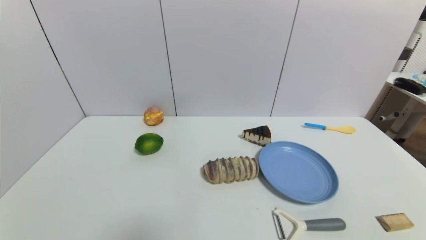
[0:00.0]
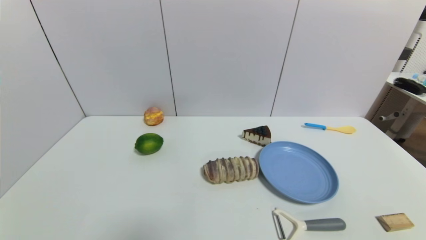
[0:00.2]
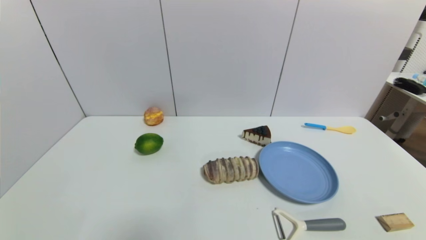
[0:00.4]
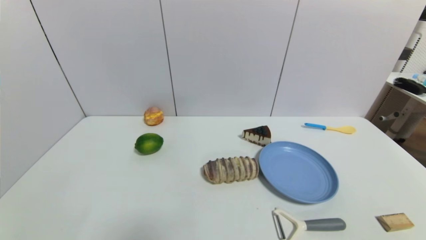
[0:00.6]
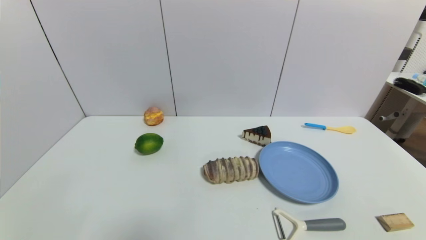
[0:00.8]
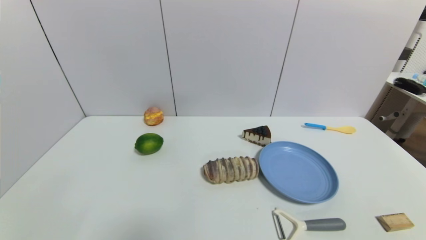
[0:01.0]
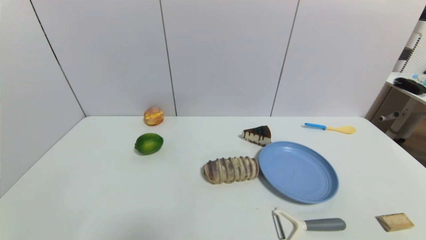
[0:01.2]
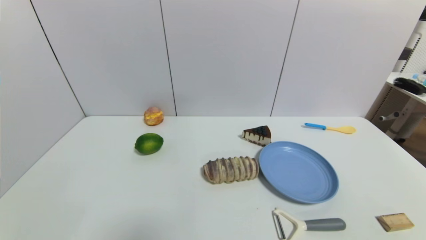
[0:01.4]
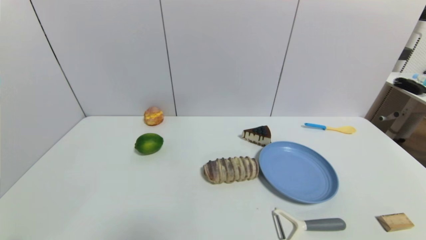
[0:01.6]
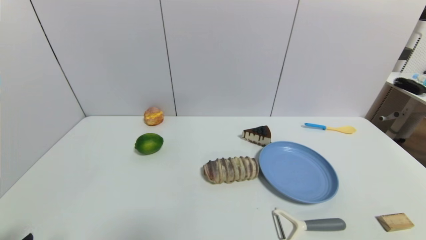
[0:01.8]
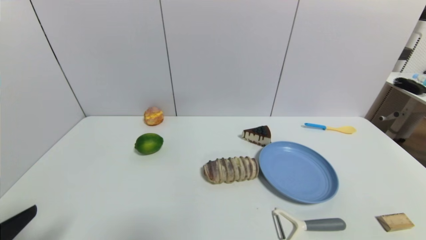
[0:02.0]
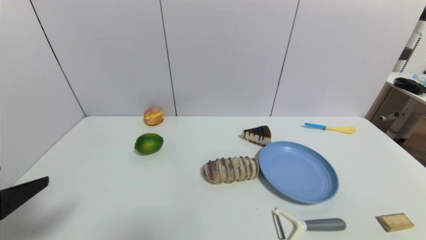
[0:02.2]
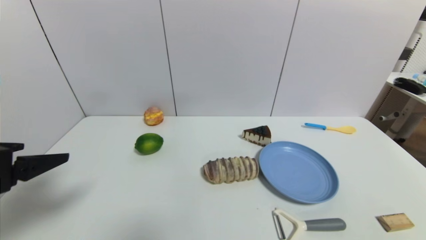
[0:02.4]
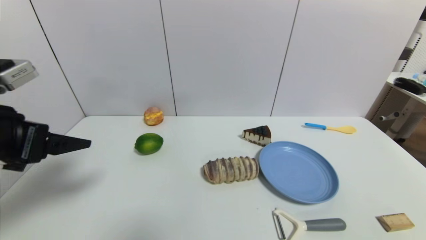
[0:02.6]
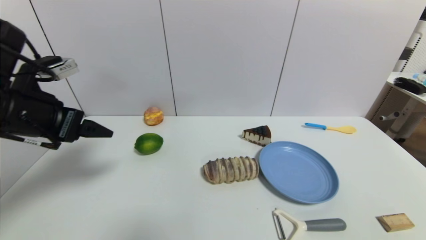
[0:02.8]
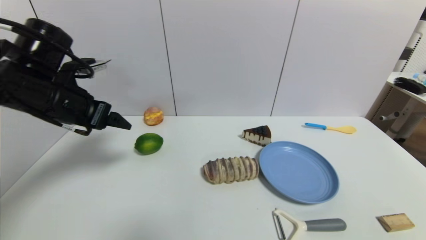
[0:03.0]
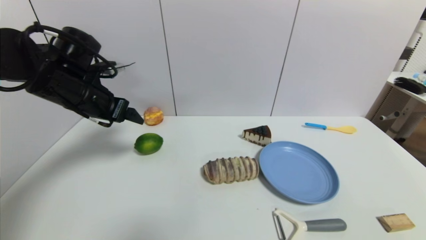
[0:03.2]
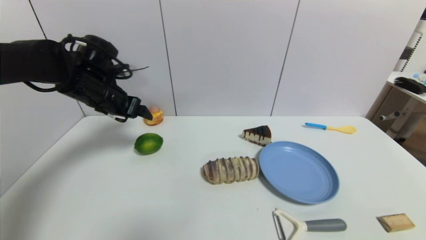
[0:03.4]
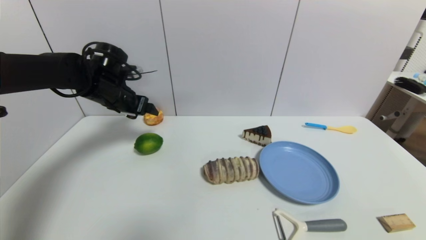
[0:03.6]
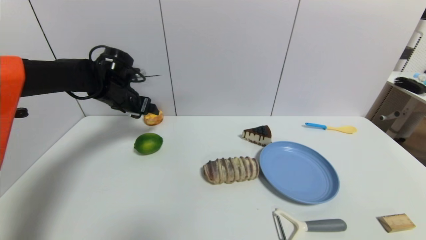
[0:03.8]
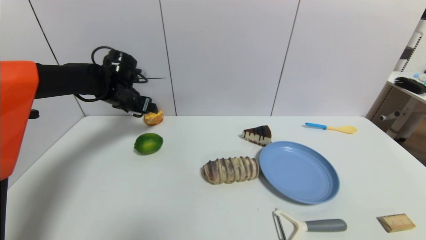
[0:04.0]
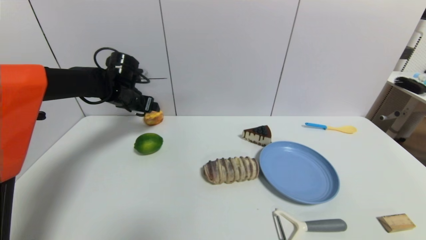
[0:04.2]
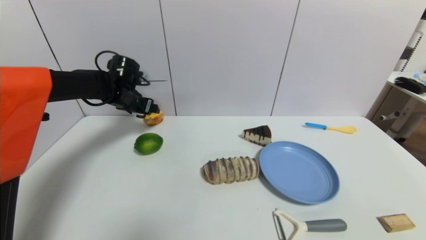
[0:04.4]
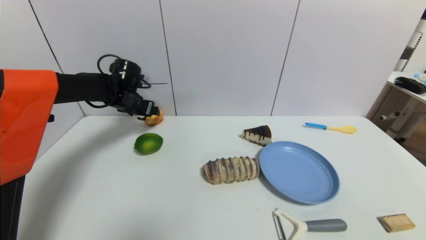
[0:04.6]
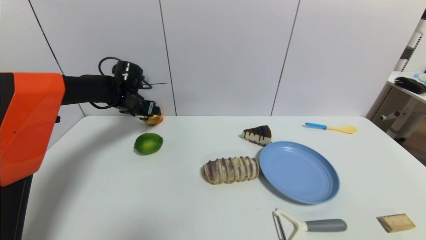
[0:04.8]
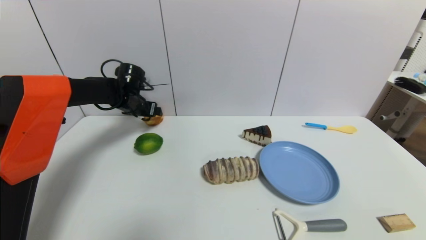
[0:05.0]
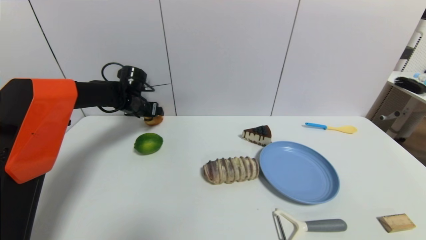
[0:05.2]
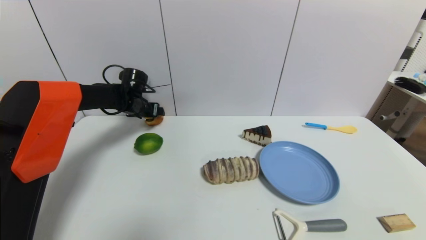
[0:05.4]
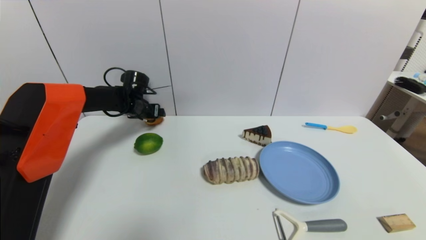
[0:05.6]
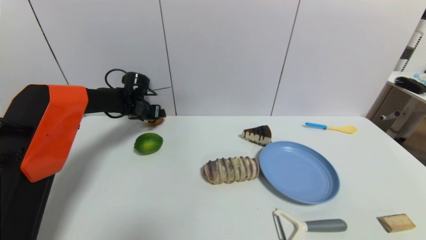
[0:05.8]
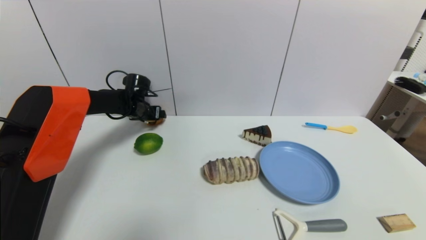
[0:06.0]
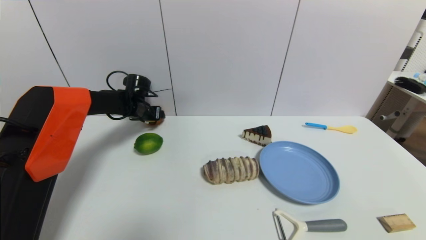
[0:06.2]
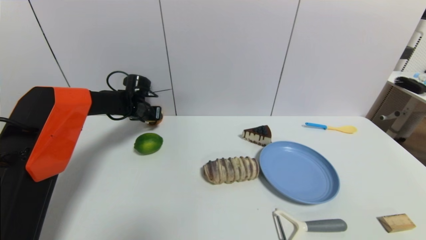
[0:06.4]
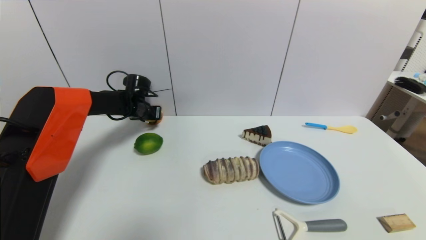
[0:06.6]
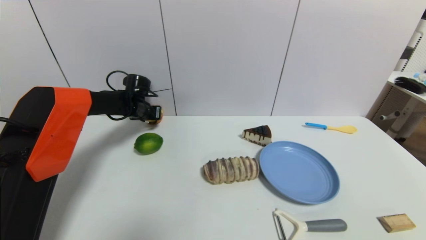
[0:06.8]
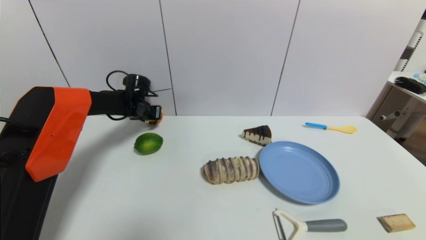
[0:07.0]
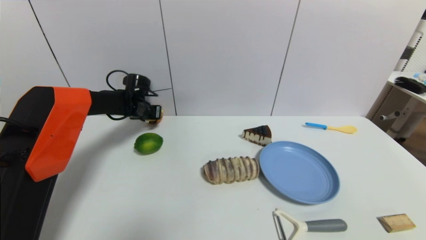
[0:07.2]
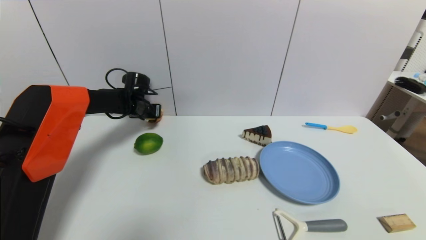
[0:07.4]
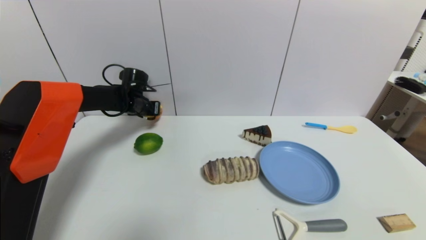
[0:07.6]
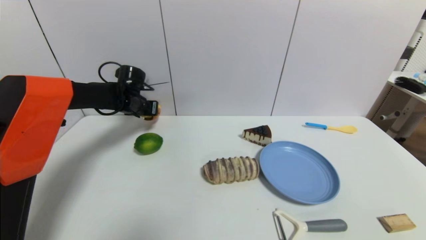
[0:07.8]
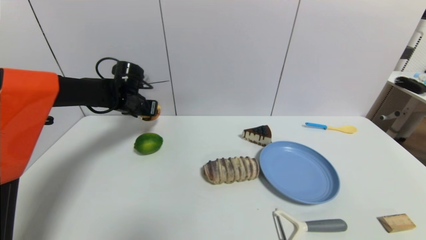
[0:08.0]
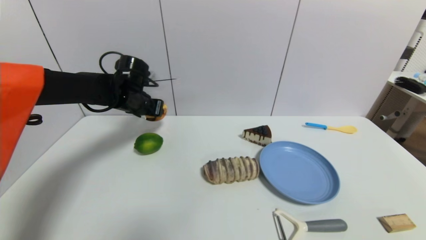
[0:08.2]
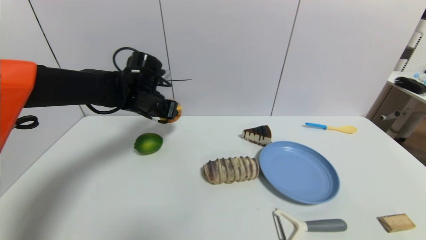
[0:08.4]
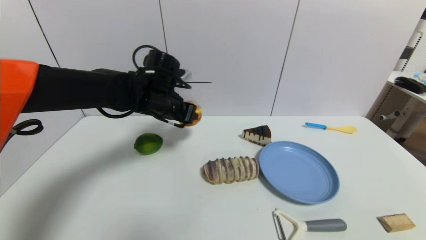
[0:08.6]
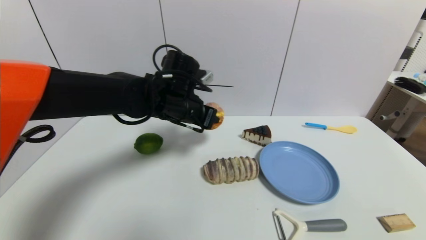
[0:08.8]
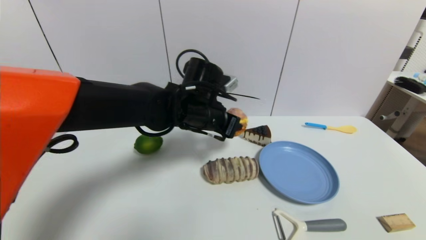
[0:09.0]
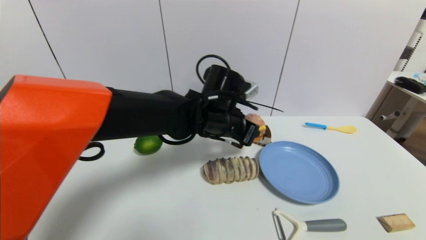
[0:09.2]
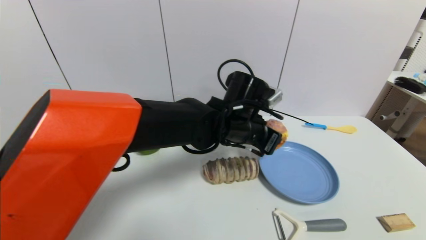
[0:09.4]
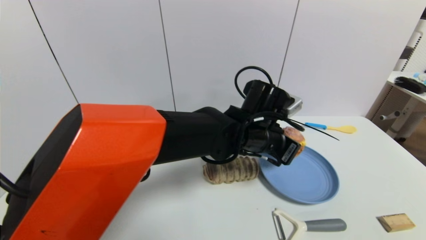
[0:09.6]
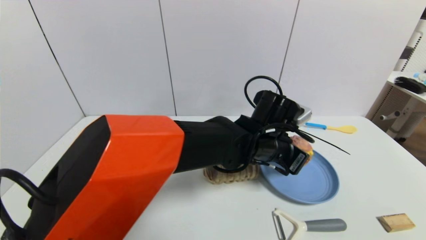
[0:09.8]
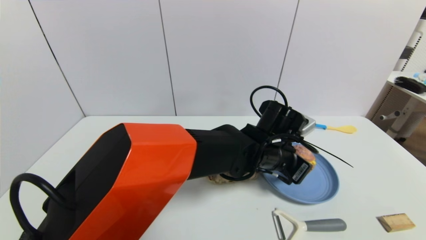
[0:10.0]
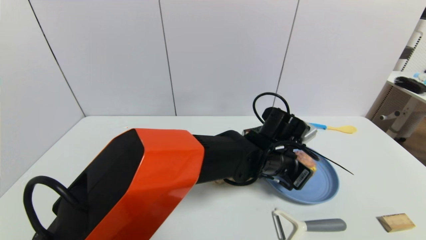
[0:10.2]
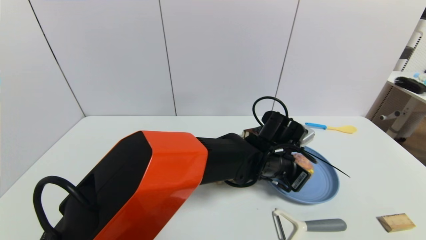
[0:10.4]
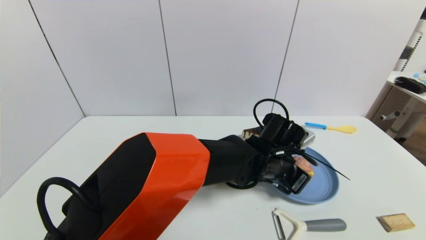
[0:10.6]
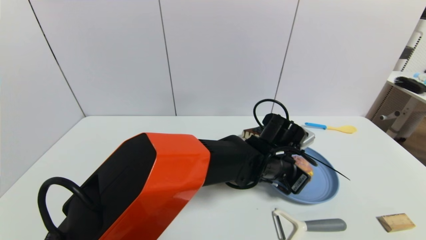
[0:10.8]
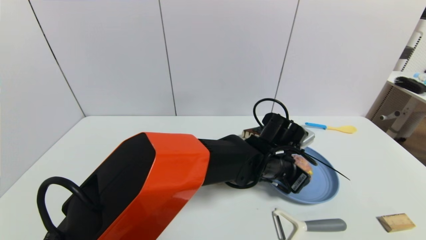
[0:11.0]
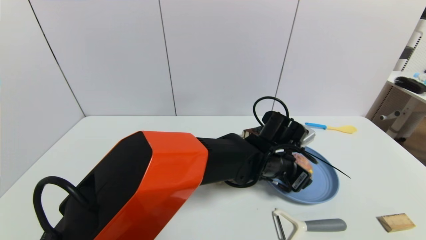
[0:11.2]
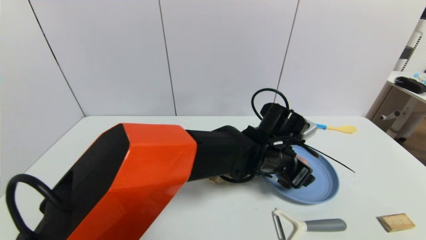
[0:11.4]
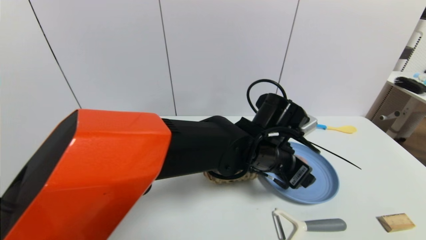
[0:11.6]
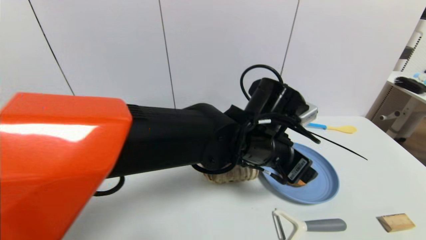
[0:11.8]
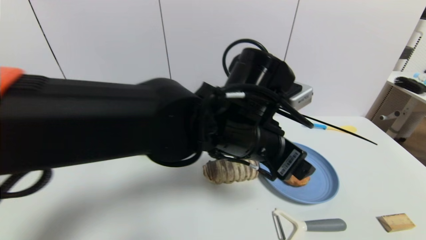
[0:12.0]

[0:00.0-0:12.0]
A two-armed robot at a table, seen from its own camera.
Task of the whole recording: use a gripper to pick the target object and place on the blue plate.
Step, 0:00.0 to 0:06.4: Grasp the round bread with the left gripper.
Step, 0:06.6 to 0:11.4: Place the round bread on the blue plate with the left gripper.
0:01.6 to 0:03.0: The left gripper is displaced forward and upward by roughly 30 cm.
0:03.0 to 0:04.4: The left gripper shifts approximately 20 cm forward and downward.
0:04.4 to 0:06.0: The left gripper travels downward by roughly 5 cm.
0:06.0 to 0:07.6: The left gripper closes.
0:07.6 to 0:09.0: The left gripper travels to the right and backward by about 25 cm.
0:09.0 to 0:10.4: The left gripper moves to the right and downward, roughly 15 cm.
0:10.4 to 0:12.0: The left gripper heads upward, to the left and backward, covering approximately 15 cm, and opens up.

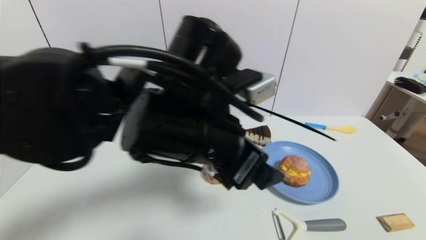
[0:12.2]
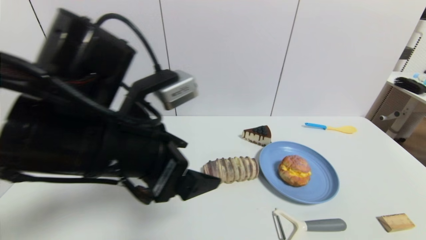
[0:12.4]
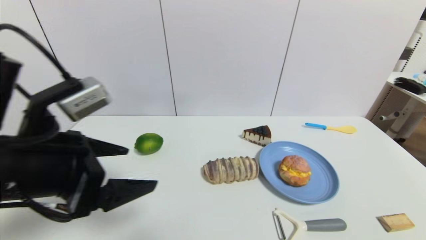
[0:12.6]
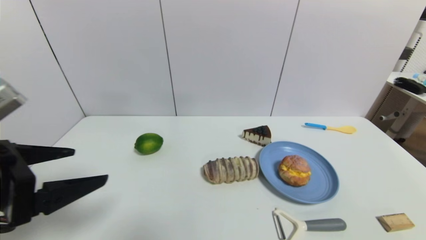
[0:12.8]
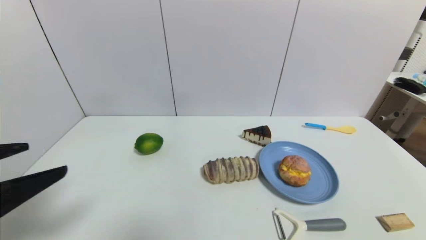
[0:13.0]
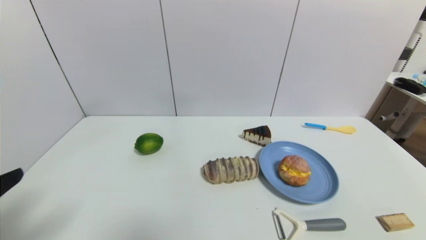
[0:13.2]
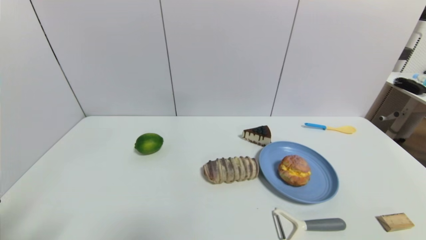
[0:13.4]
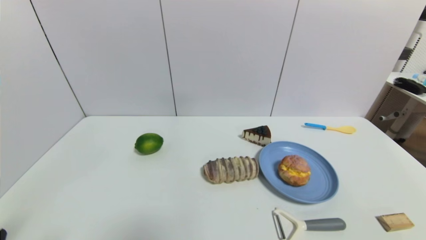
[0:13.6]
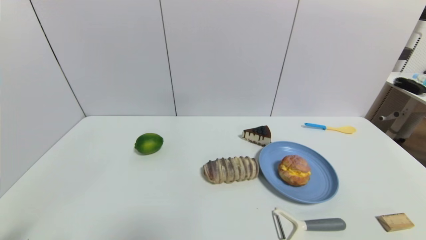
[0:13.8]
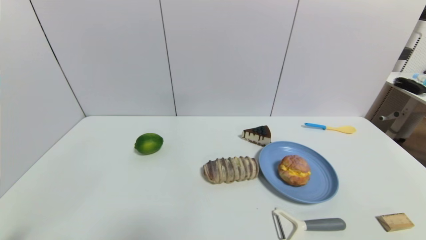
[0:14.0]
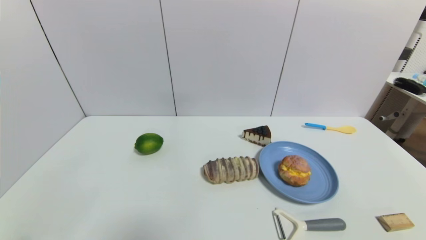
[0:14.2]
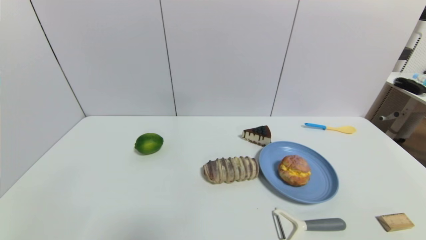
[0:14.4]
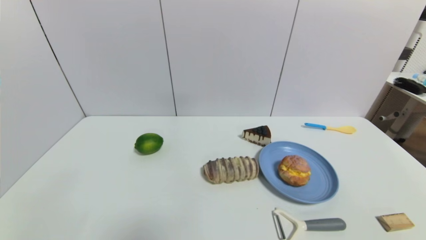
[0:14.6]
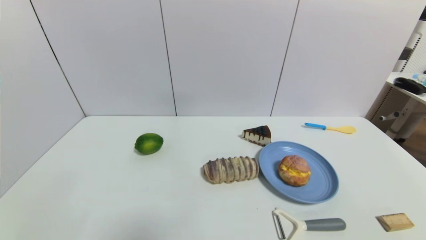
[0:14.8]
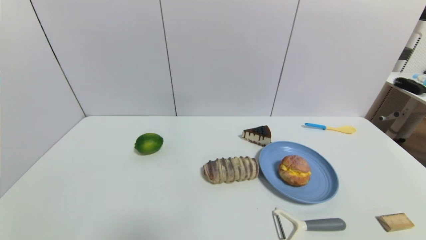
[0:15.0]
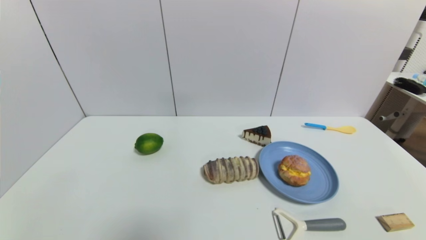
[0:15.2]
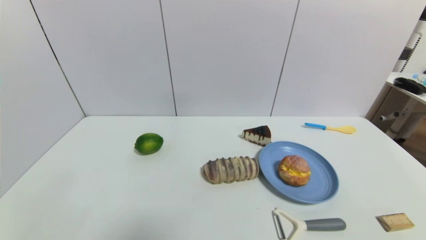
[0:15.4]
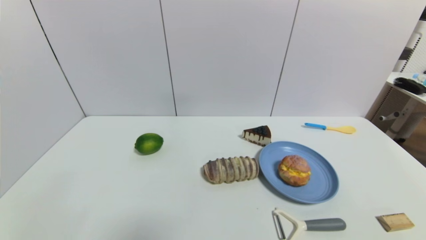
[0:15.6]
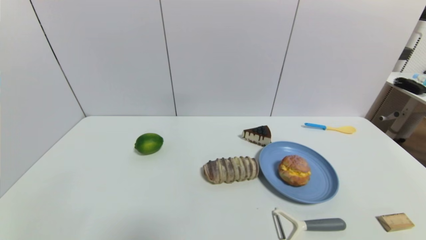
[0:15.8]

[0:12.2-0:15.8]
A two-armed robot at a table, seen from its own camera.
Task of the whole recording: use a gripper to pick the target object and place on the blue plate.
0:12.2 to 0:14.0: The left gripper heads to the left, backward and downward, covering some 35 cm.
